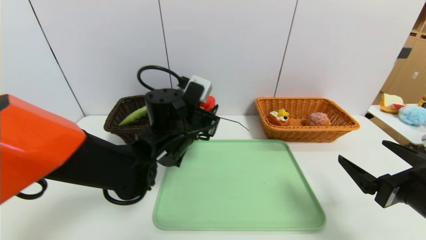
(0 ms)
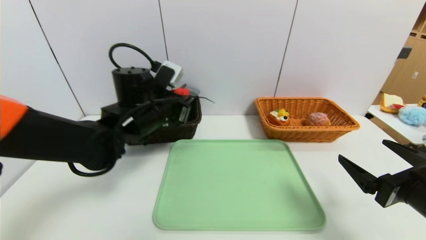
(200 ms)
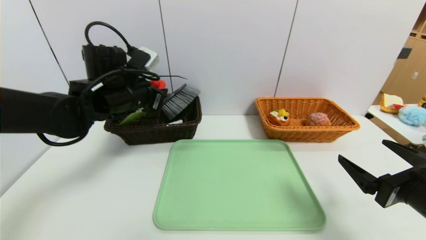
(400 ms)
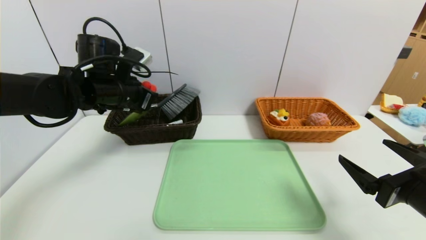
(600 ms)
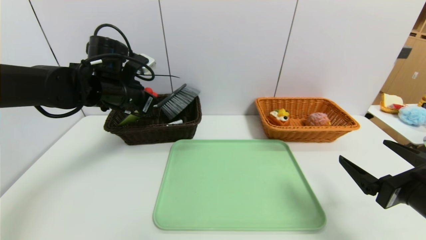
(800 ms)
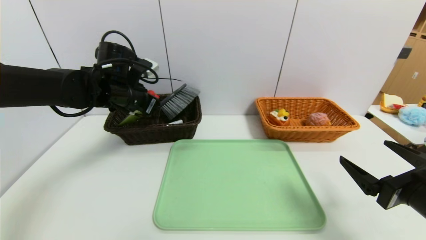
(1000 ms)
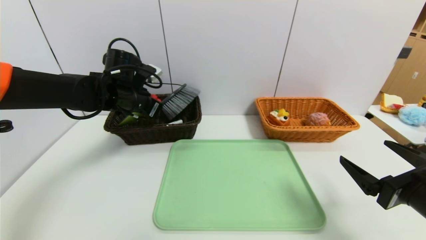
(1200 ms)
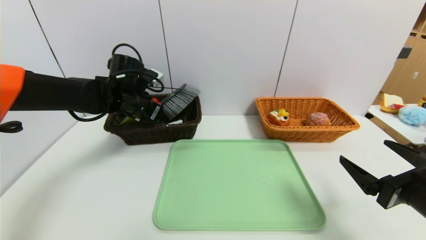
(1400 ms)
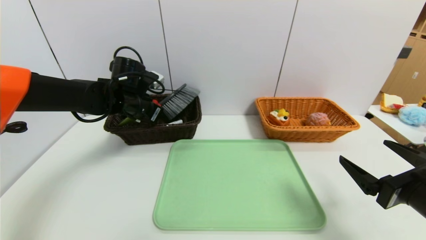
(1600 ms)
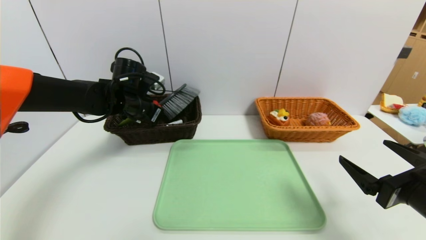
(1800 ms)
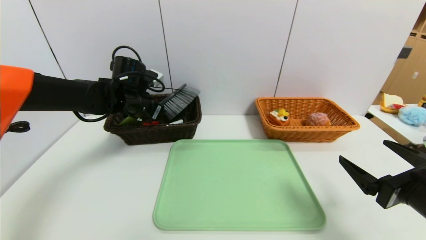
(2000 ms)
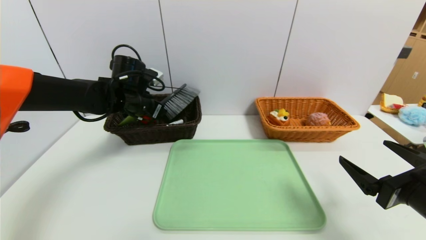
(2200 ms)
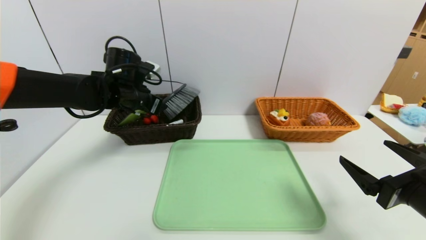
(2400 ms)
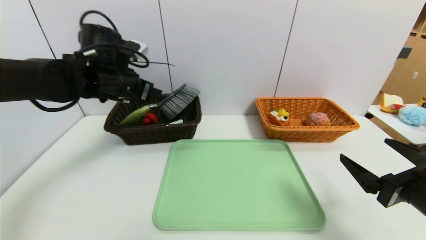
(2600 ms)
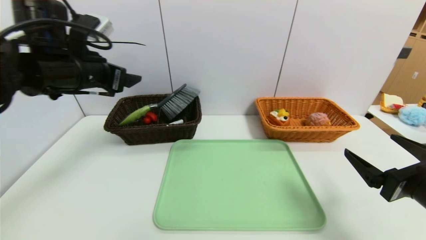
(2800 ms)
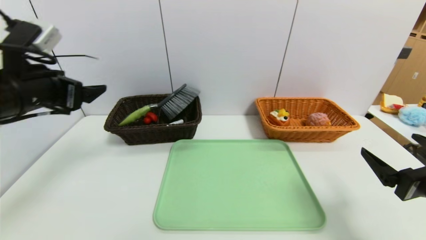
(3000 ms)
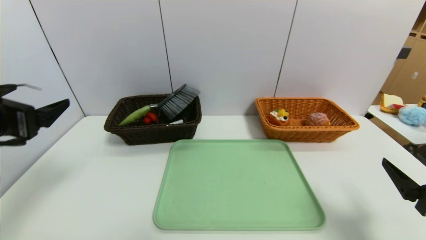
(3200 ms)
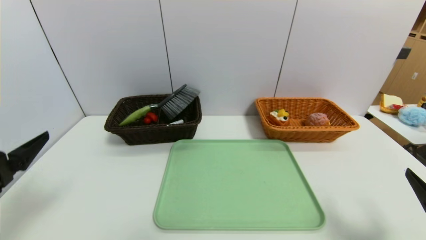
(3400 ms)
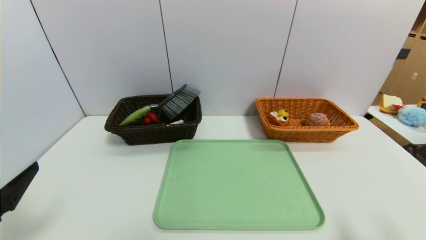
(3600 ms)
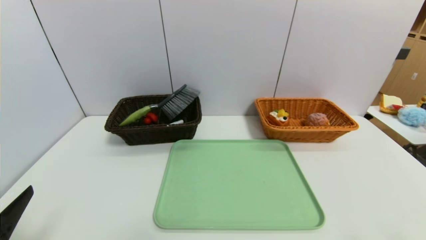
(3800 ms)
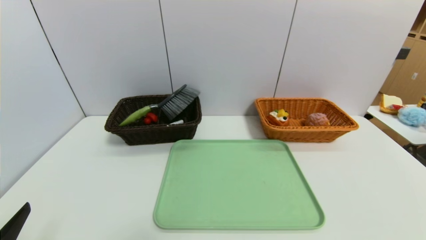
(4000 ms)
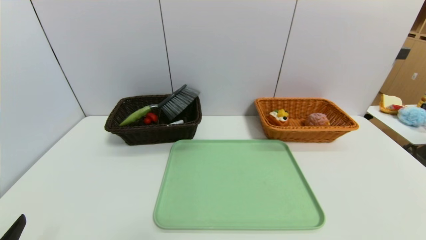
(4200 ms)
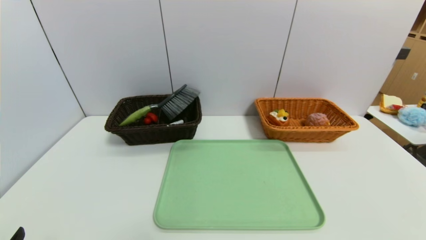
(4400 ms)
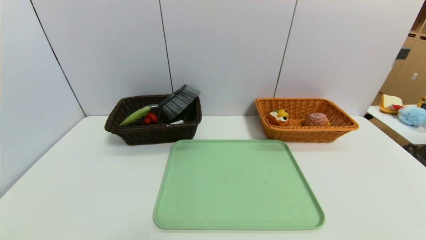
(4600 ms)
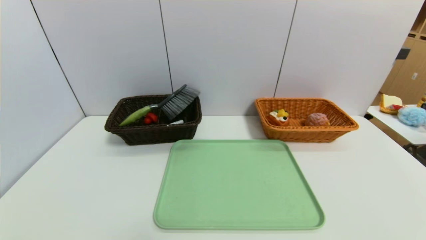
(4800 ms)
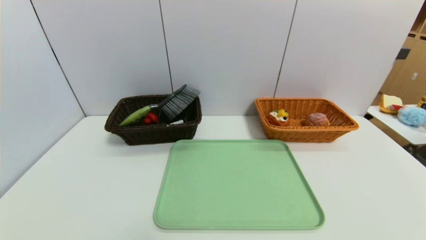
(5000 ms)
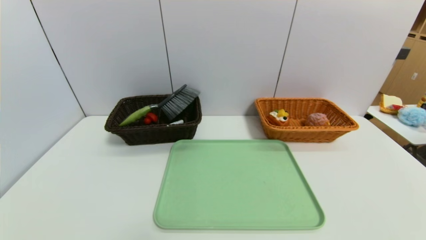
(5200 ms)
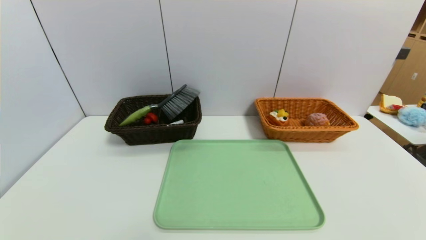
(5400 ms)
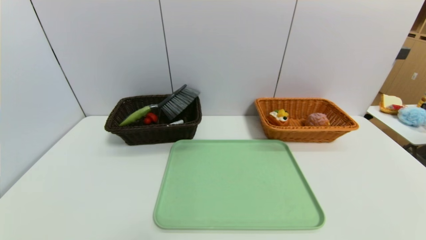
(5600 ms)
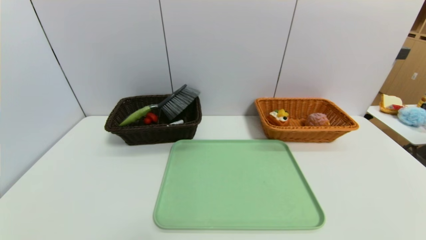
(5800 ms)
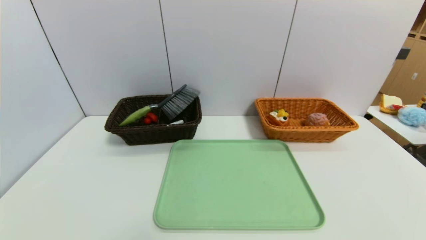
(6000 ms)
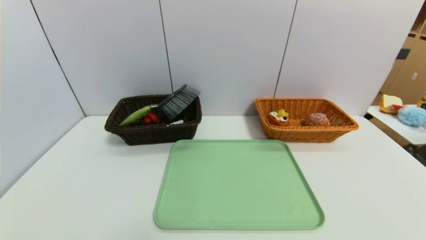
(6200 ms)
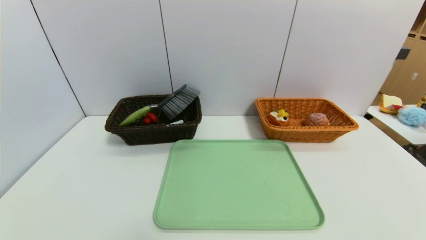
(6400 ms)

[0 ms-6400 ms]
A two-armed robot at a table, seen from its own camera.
Task of the whole recording: place the food in the right basket with the right gripper, and place the non food items in the left basket with the left gripper.
Step, 0 ms to 2200 ms: Grasp the red duck and put it in the left basket.
0 ms to 1600 ms: The left gripper shifts about 15 cm to the left and forward.
1600 ms to 3200 ms: The left gripper travels backward and to the left by roughly 25 cm, and opens. The right gripper changes place by approximately 5 cm.
3200 ms to 4800 ms: The left gripper shifts approximately 25 cm downward and backward. Meanwhile the right gripper is displaced backward and downward by approximately 15 cm.
